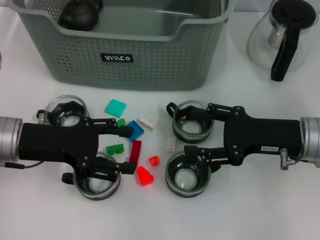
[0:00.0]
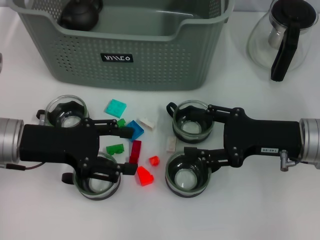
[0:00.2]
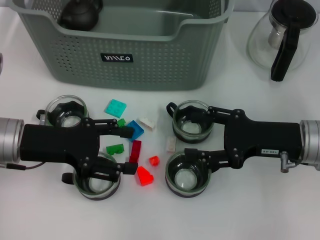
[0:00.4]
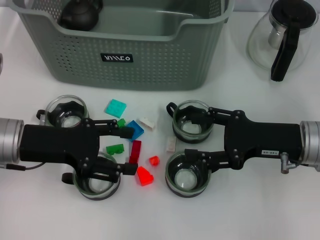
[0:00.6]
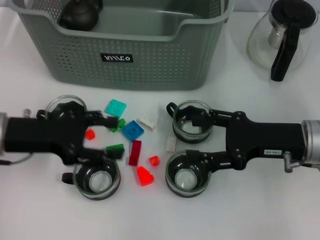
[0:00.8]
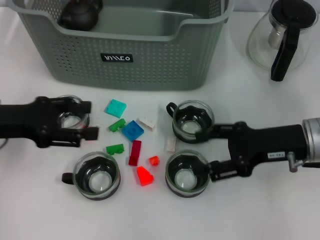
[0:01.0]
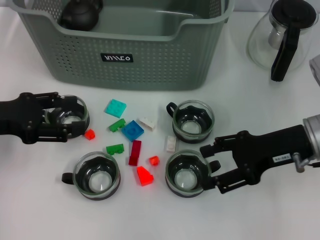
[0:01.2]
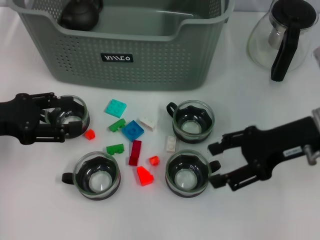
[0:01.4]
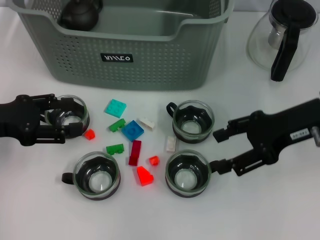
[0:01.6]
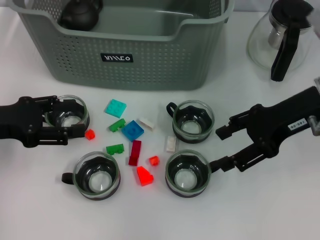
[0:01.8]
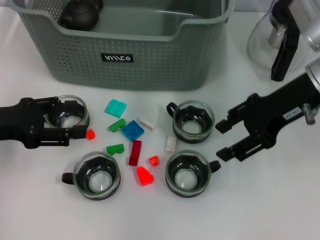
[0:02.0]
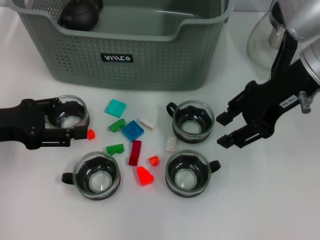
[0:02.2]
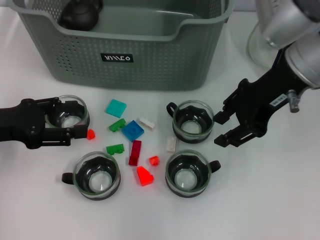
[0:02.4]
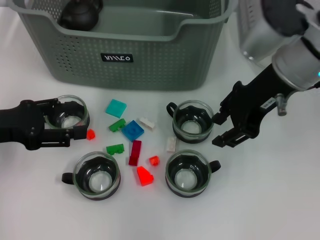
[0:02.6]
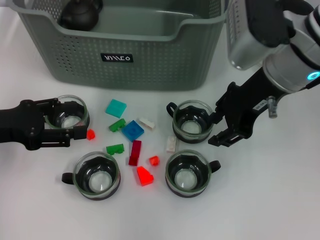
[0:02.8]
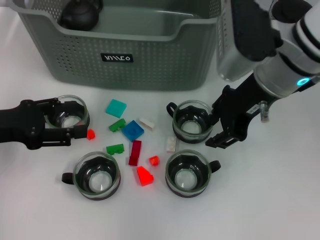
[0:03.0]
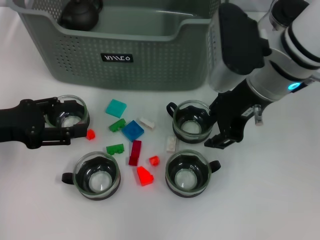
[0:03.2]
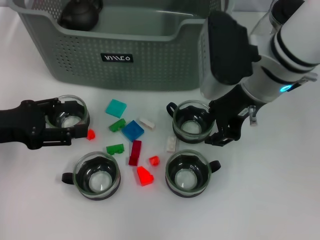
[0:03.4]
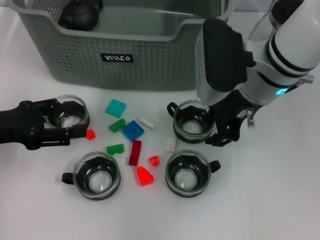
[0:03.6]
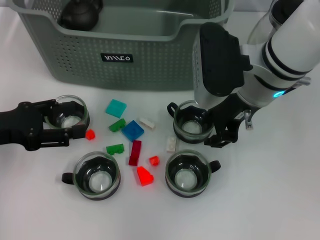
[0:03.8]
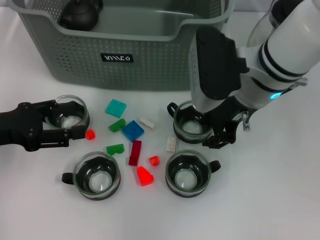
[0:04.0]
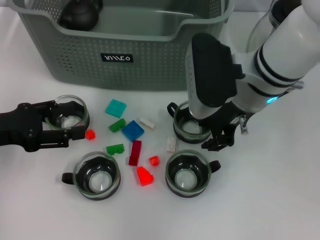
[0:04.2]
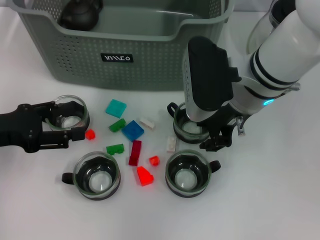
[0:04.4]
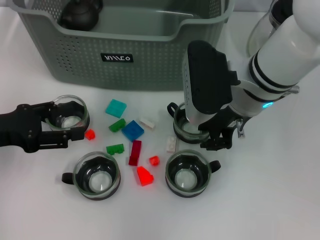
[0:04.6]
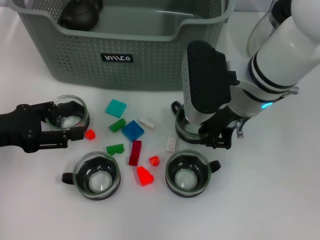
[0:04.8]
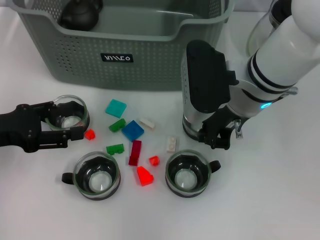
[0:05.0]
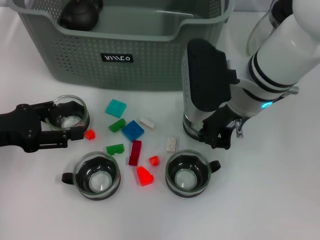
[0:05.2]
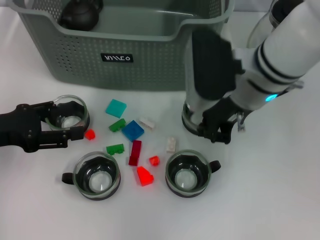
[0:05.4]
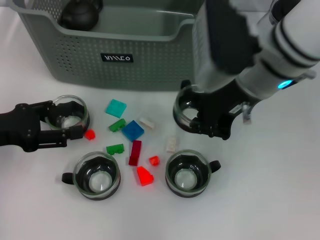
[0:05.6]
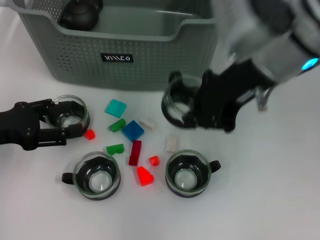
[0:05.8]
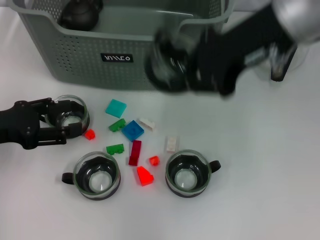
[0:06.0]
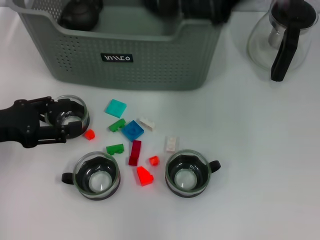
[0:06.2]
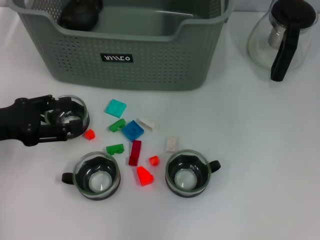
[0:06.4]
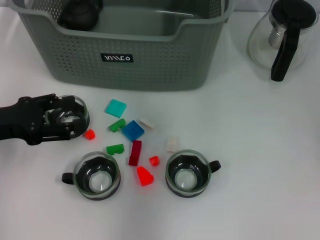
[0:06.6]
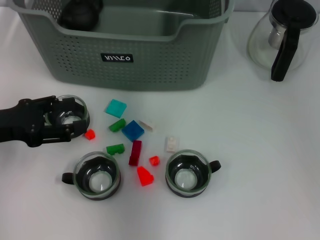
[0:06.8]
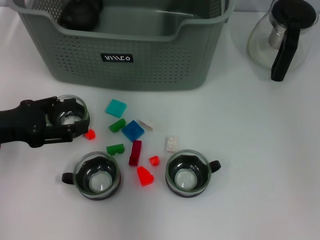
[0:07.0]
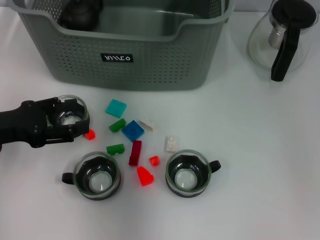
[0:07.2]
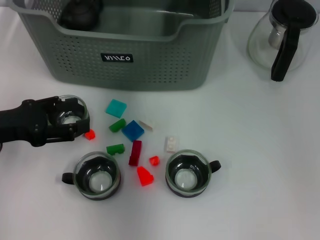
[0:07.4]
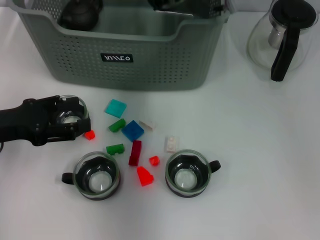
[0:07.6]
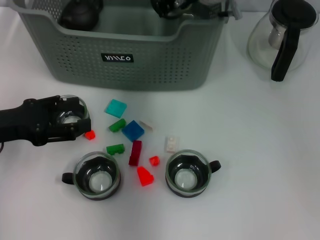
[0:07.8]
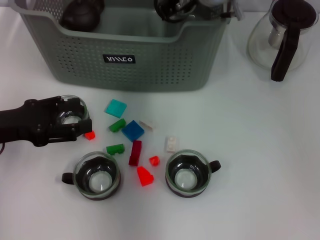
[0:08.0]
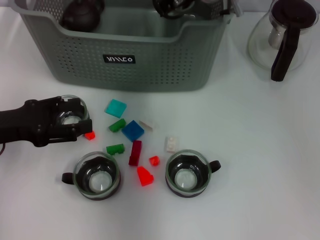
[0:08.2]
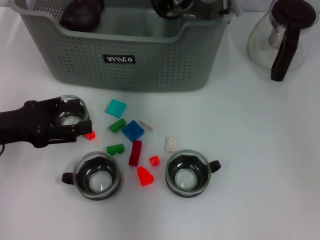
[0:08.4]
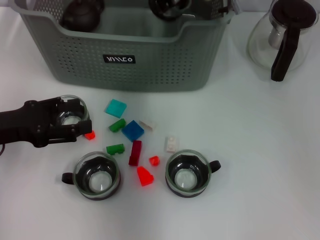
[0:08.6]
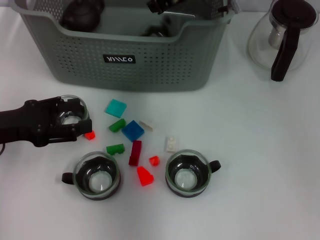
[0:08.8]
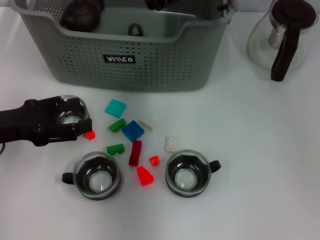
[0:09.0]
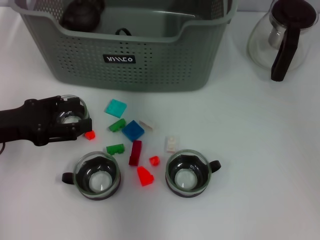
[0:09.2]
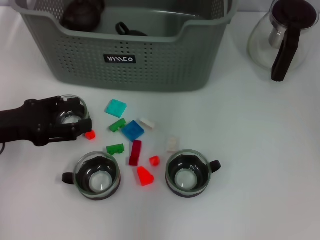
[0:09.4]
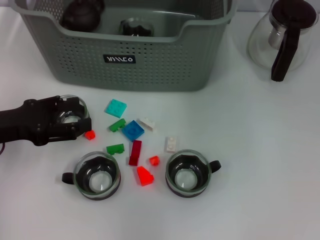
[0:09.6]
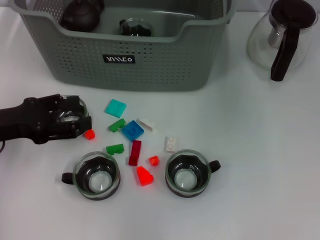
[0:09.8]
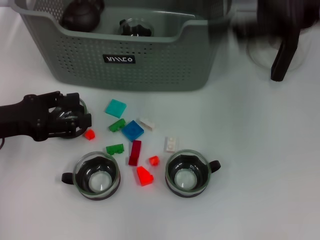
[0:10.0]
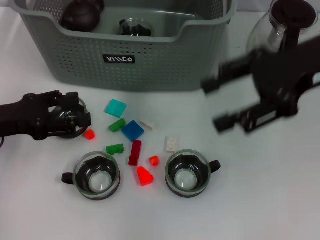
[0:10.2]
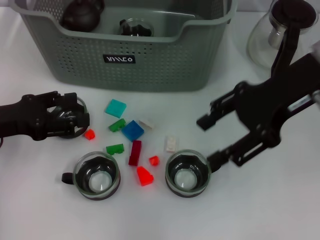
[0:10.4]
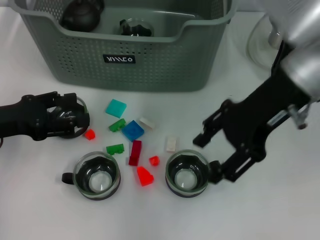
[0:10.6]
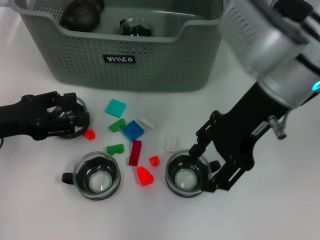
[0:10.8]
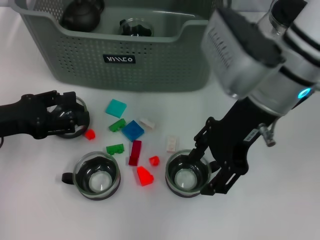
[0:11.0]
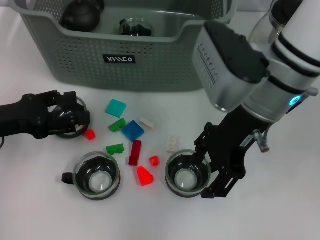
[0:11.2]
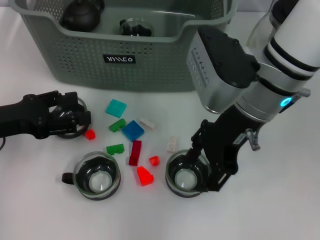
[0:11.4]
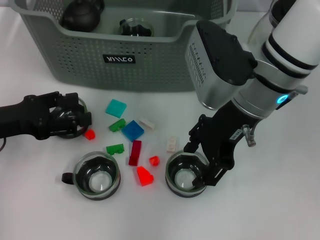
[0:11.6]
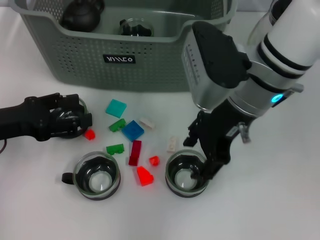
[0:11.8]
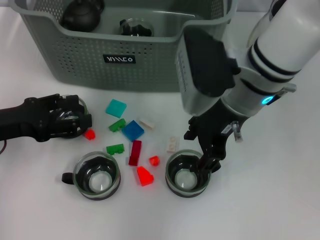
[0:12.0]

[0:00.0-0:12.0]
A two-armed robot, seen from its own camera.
Task of the whole recording: pick up the teacup on the table and place it into the storage bin, pick up the block on the table and place it into the storage bin.
Step, 0:00.0 to 0:04.8: Grasp the cup with right gripper.
Step, 0:05.0 to 0:09.2: Place the cup in the storage box with right gripper.
0:00.0 to 0:01.6: The right gripper is displaced upward by approximately 5 cm. The left gripper goes roughly 5 cm to the left.
0:01.6 to 0:03.0: The right gripper goes approximately 10 cm to the left, and closes up.
0:03.0 to 0:04.4: The right gripper ends up roughly 5 cm from where it was.
0:04.4 to 0:06.0: The right gripper shifts about 15 cm upward, and closes up.
0:06.0 to 0:07.6: The right gripper is displaced forward, downward and to the left by some 15 cm.
0:07.6 to 0:09.0: Both grippers stay about where they are.
0:09.0 to 0:10.4: The right gripper is displaced backward and to the right by roughly 20 cm, and opens its fingers.
0:10.4 to 0:12.0: The right gripper is displaced to the left and downward by roughly 10 cm.

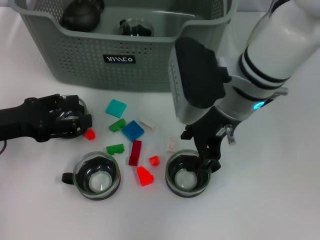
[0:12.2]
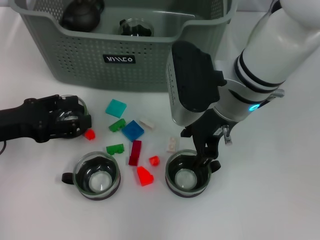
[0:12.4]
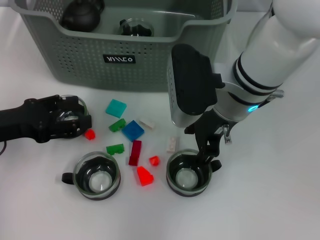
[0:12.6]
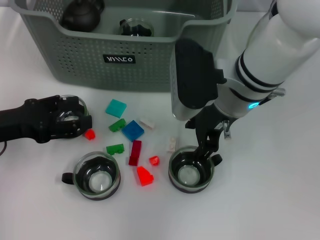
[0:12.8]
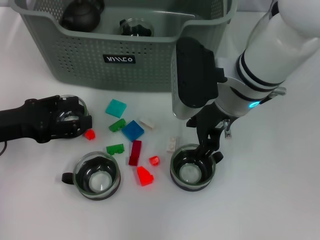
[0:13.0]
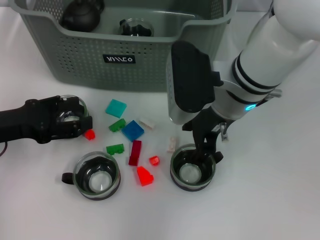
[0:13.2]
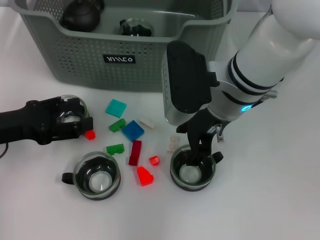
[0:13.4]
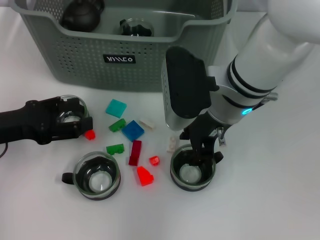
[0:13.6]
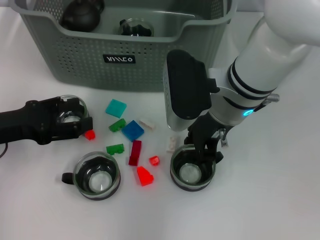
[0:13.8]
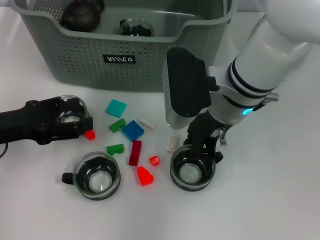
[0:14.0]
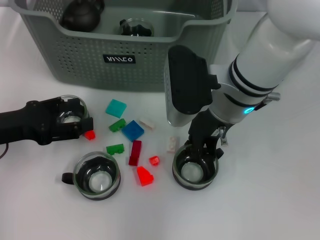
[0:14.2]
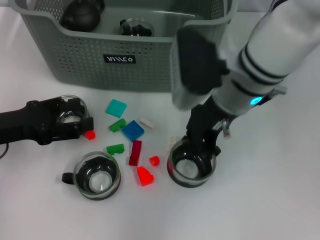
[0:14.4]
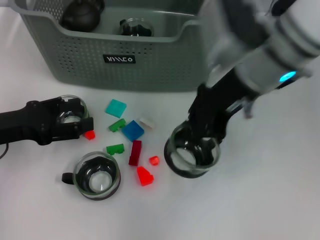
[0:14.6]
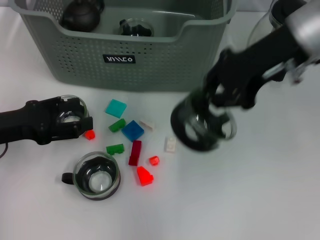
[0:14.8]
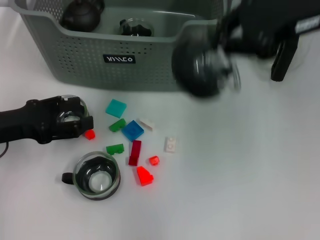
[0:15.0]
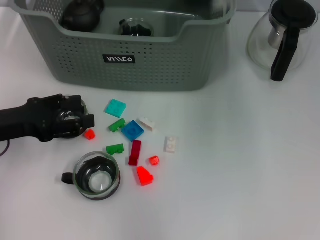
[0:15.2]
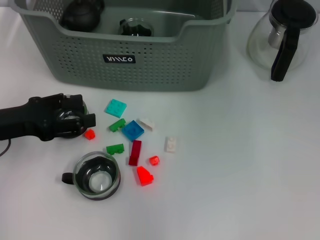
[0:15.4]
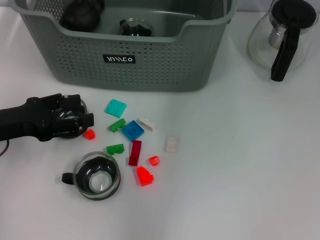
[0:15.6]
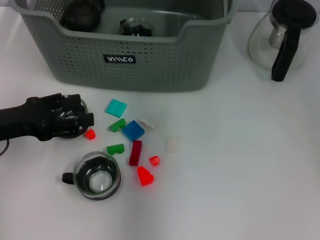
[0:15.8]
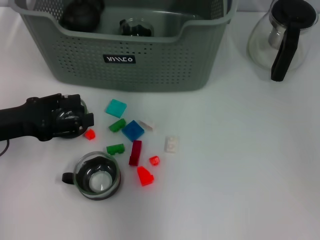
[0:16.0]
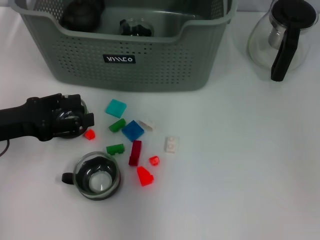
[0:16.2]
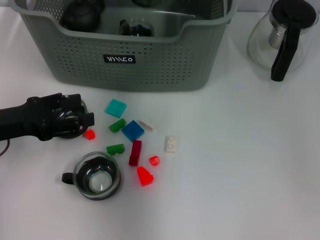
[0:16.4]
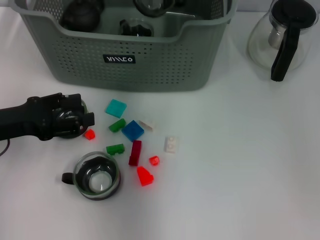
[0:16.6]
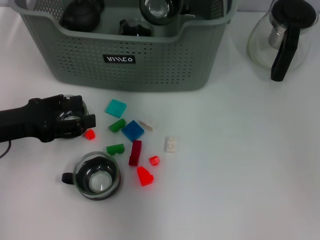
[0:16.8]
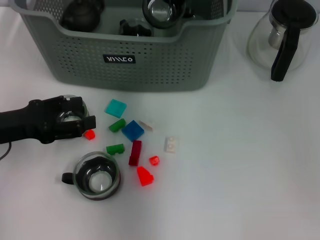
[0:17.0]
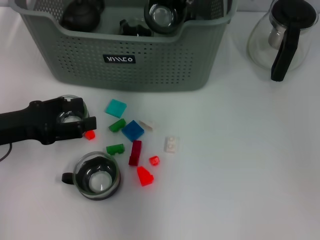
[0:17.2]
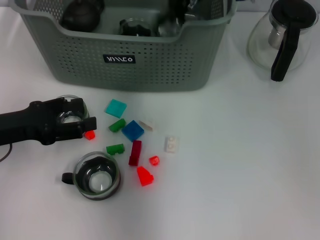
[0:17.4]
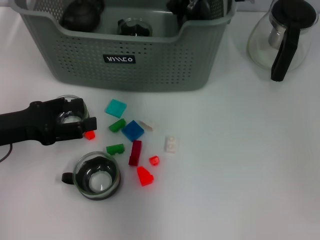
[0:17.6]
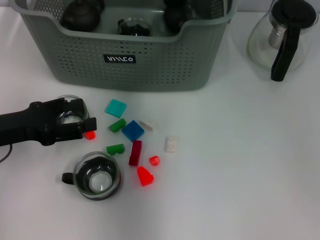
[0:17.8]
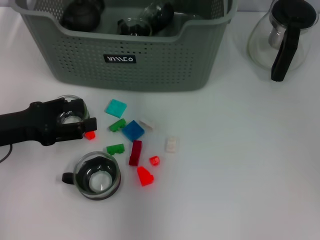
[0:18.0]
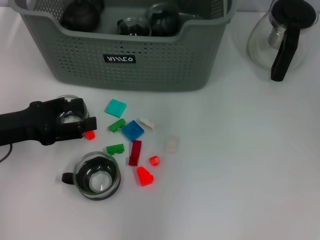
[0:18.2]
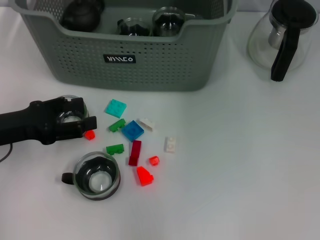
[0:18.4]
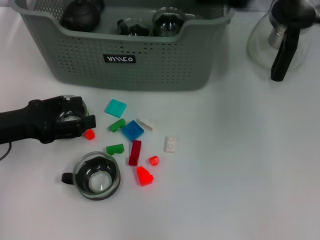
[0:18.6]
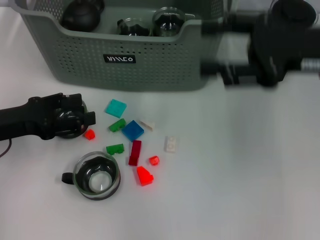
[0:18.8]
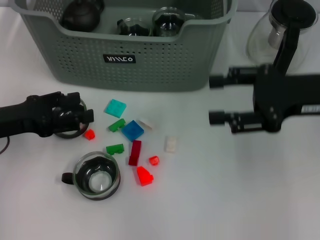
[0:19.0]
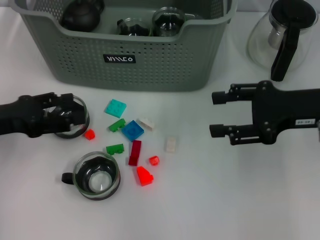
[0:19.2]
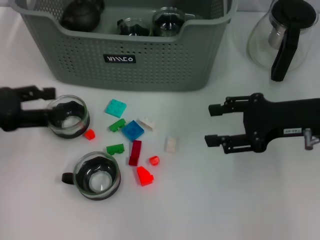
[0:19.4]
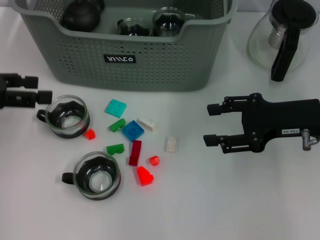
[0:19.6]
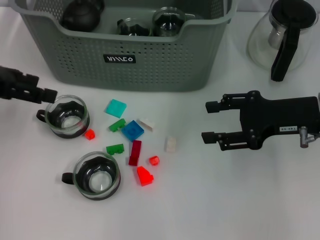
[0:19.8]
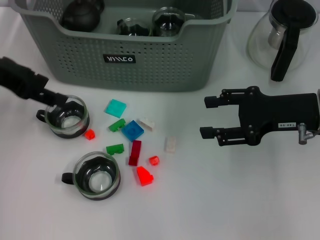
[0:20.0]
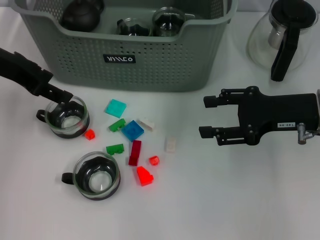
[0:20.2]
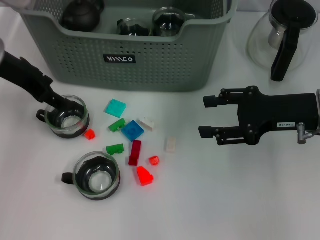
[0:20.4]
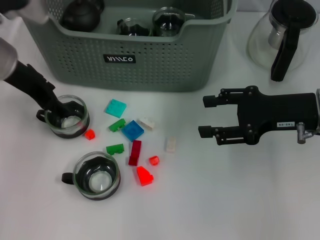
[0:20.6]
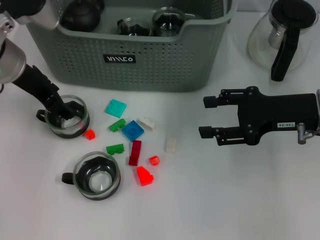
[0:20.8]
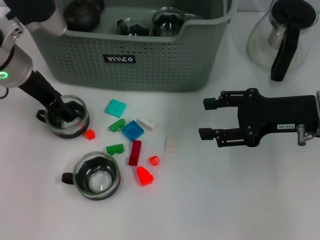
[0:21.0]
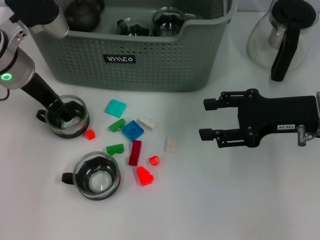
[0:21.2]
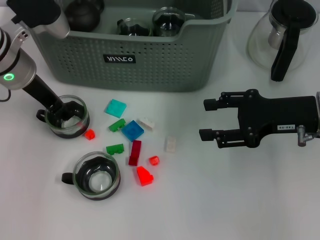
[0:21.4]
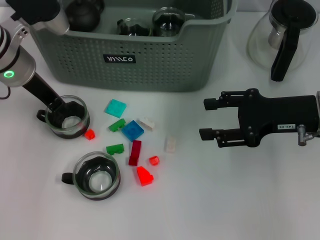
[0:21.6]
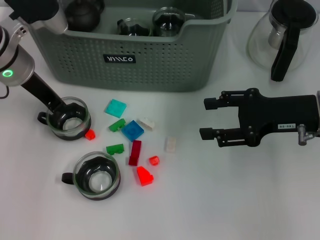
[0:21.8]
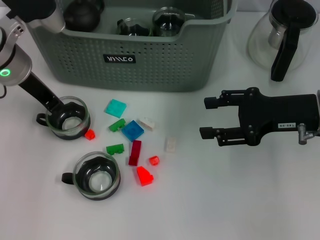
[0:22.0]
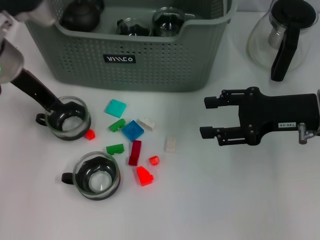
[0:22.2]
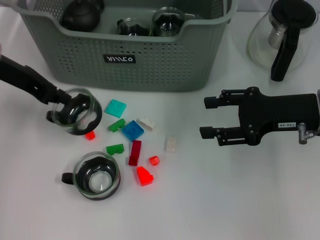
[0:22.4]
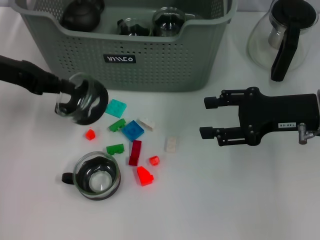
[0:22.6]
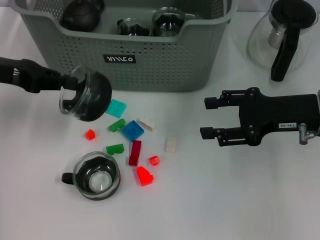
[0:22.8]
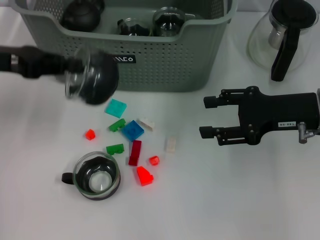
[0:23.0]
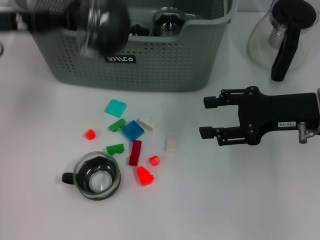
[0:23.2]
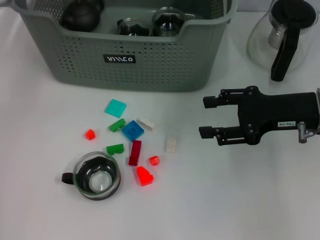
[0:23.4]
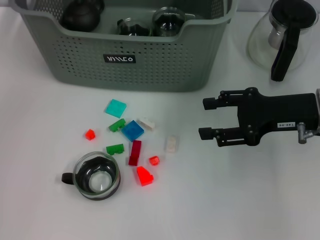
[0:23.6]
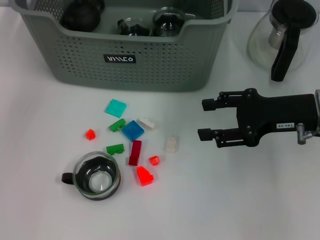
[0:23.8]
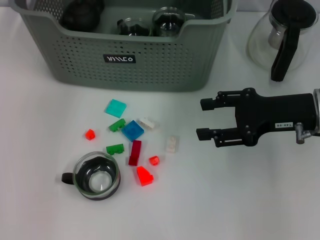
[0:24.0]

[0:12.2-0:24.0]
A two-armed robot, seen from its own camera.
Task of the whole recording: pick up the teacup on the table and place it into the storage bin, pick up the block on the table and place it into the storage bin.
Step, 0:14.2 to 0:18.0: Place the cup in the storage box with right gripper.
Step, 0:18.2 to 0:21.8: Grasp the cup with left gripper.
0:12.2 to 0:13.6: The grippers stay close to where they were, moving slightly.
0:13.6 to 0:15.2: The right gripper moves to the right and upward, approximately 20 cm, and closes.
0:15.2 to 0:16.6: The right gripper goes about 20 cm to the left and forward.
0:16.6 to 0:18.2: The right gripper shifts approximately 5 cm upward, and opens its fingers.
0:18.2 to 0:19.6: The right gripper moves downward, to the right and backward, roughly 25 cm, while the left gripper shifts approximately 10 cm upward.
0:19.6 to 0:21.0: The left gripper moves to the right and forward, some 15 cm.
0:21.0 to 0:22.6: The left gripper moves to the left, some 10 cm, and closes its fingers.
0:22.6 to 0:24.0: The left gripper travels forward, to the right and upward by roughly 20 cm.
